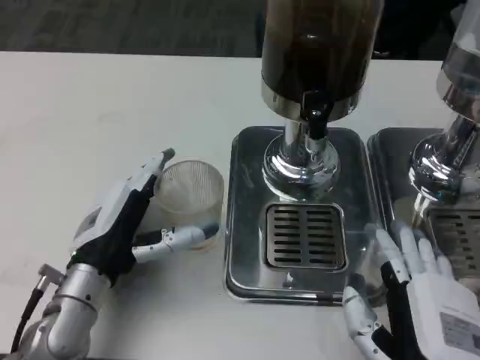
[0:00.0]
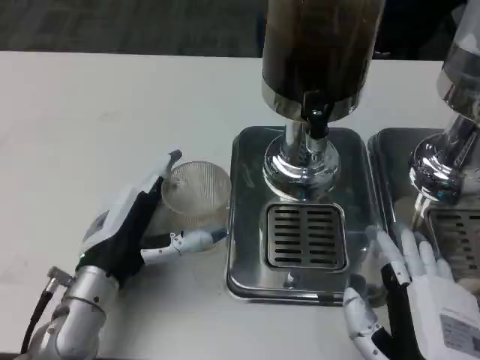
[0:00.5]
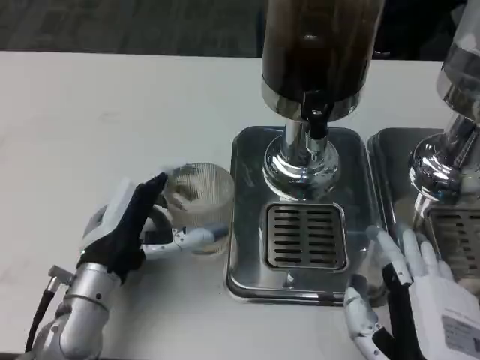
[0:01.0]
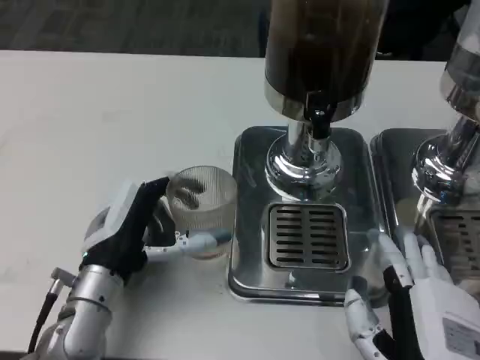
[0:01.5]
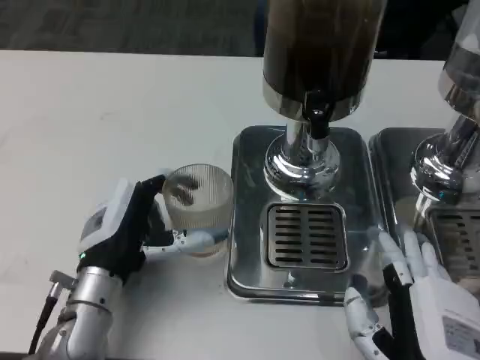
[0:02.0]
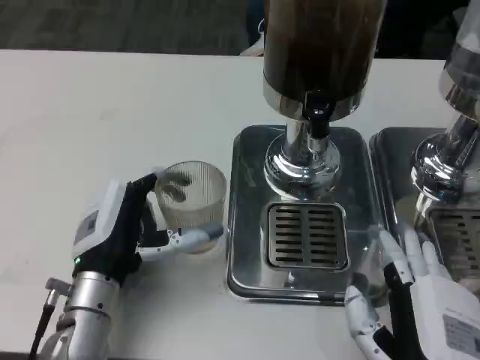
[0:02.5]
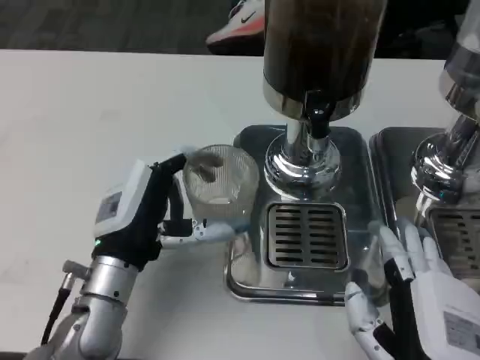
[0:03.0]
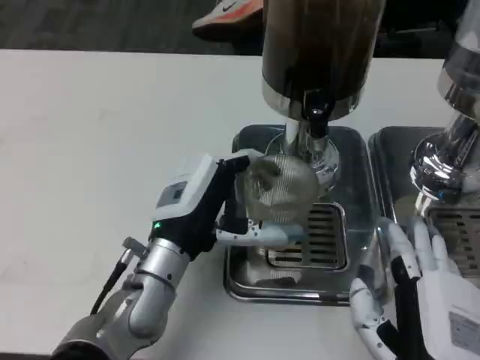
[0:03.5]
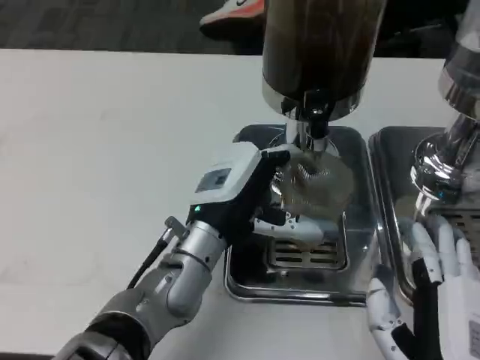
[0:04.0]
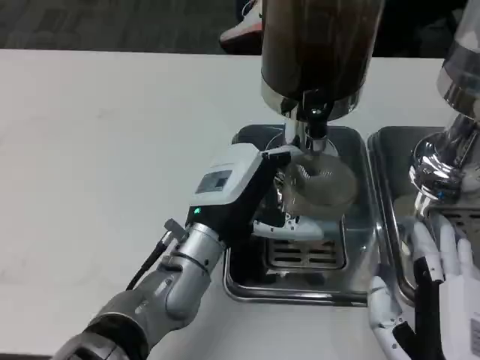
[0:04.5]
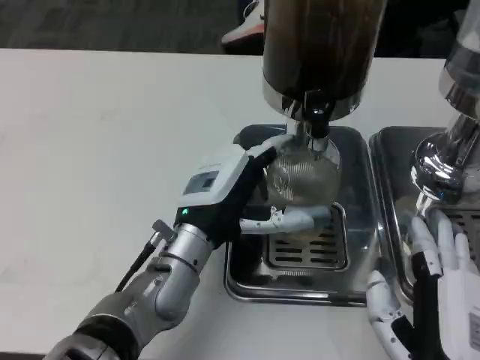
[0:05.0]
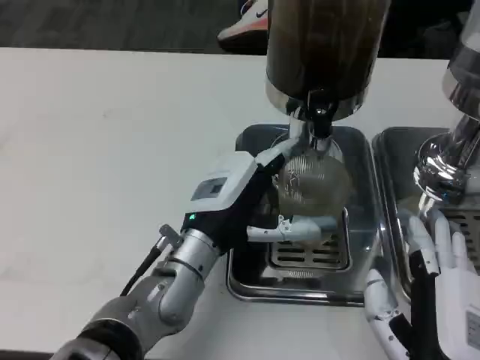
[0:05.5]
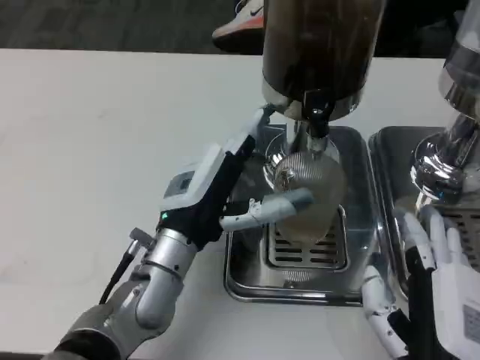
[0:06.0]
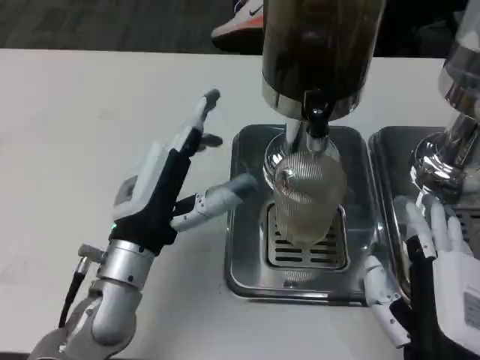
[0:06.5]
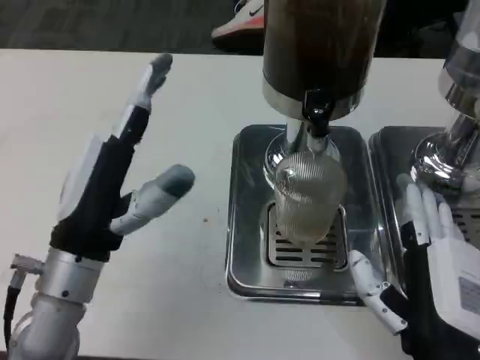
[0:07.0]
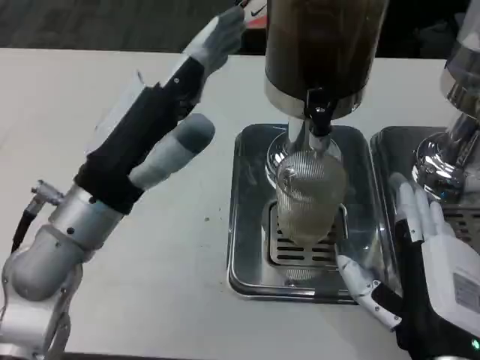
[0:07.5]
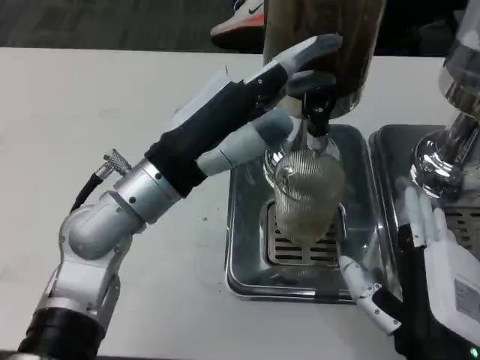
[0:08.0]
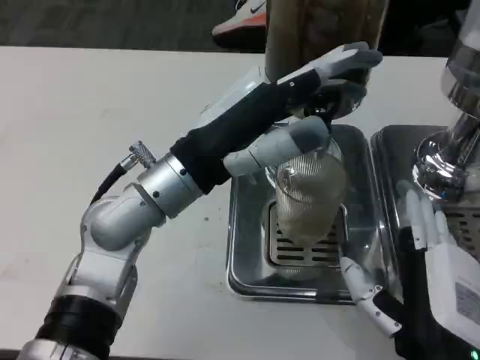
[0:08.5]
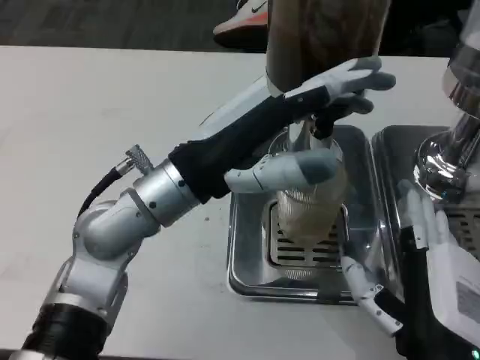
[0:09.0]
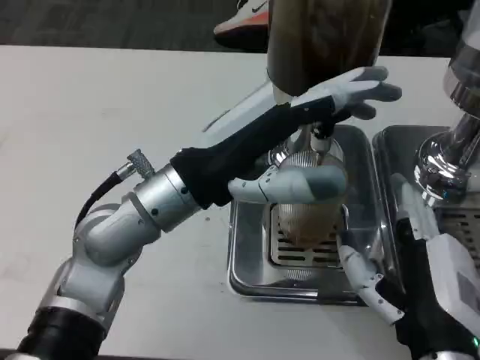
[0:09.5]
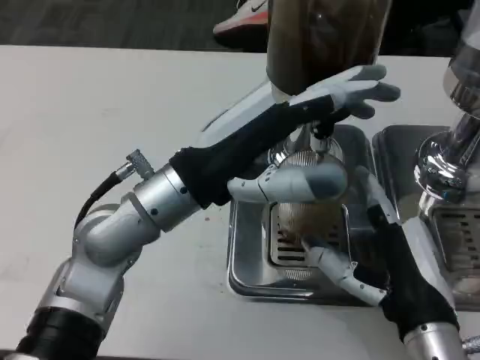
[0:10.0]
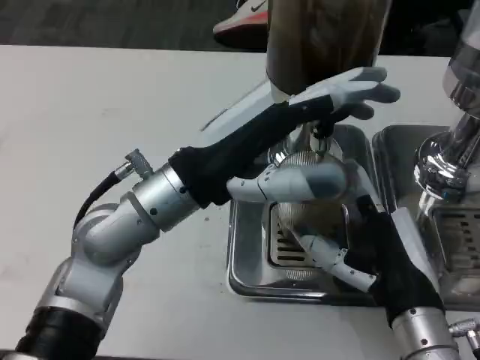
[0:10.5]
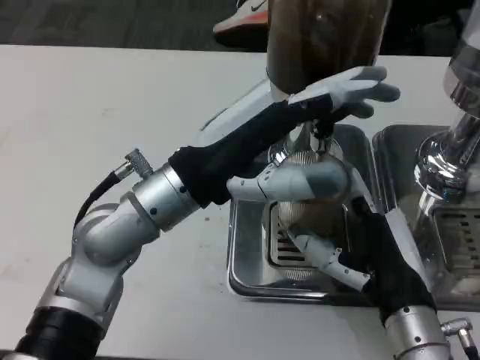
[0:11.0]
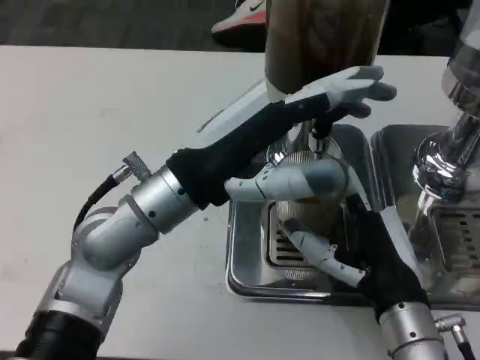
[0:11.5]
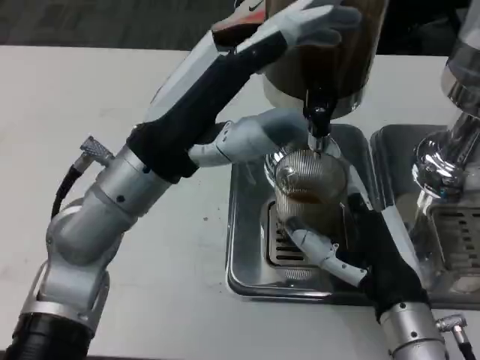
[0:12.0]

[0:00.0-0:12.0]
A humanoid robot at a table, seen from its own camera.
Task of the whole recording: Grasp the cup under the faucet to collect the drink, then remove the cup.
0:00.0 to 0:02.0: The hands make only small movements.
0:02.0 to 0:04.0: The left hand shifts about 10 cm to the right.
0:04.0 to 0:06.0: The hands make only small movements.
0:06.0 to 0:08.0: The left hand shifts some 10 cm upward.

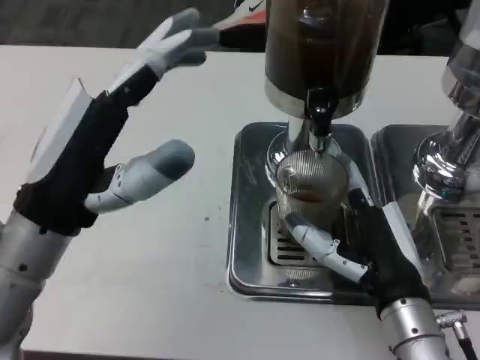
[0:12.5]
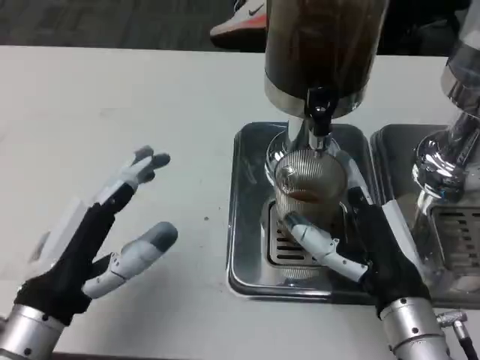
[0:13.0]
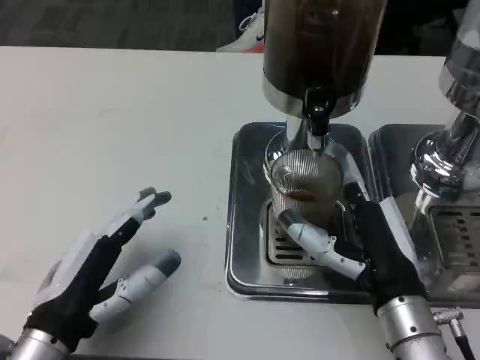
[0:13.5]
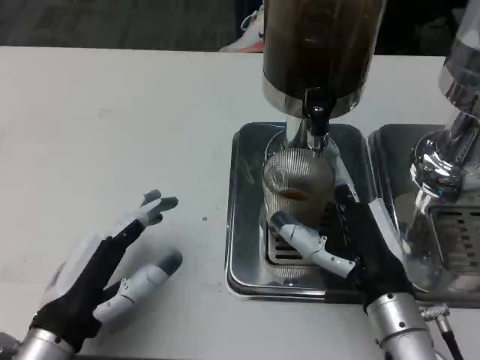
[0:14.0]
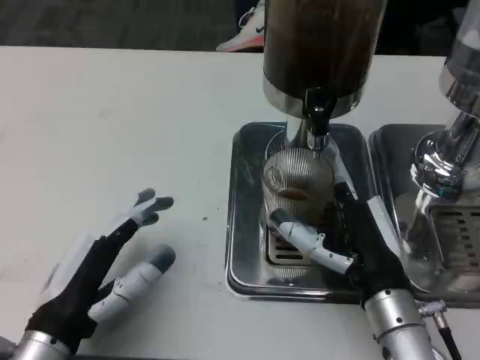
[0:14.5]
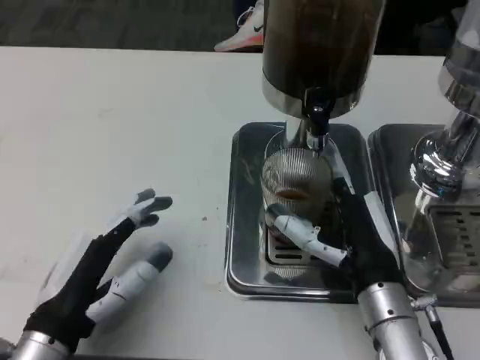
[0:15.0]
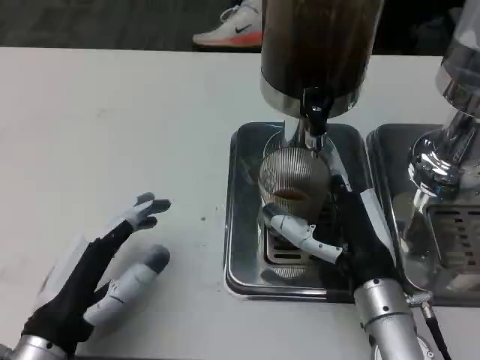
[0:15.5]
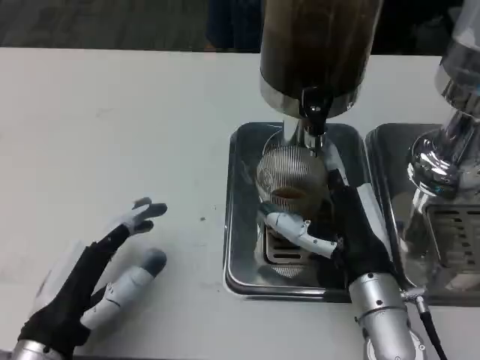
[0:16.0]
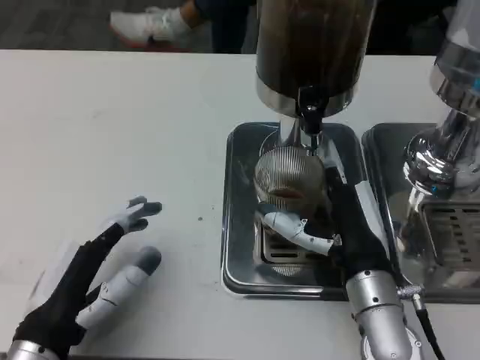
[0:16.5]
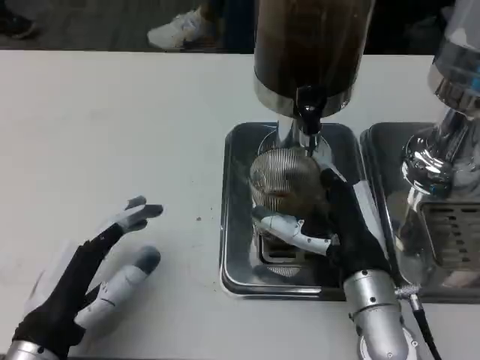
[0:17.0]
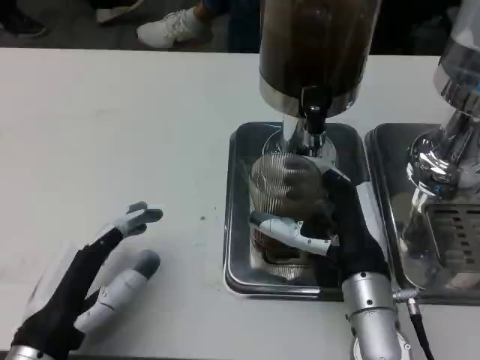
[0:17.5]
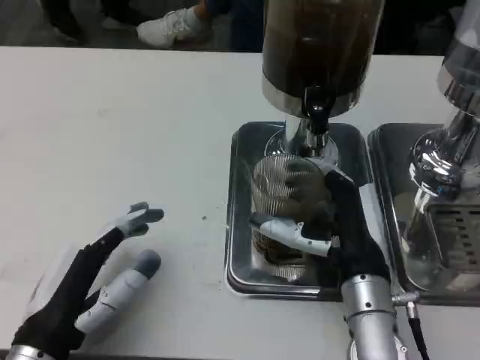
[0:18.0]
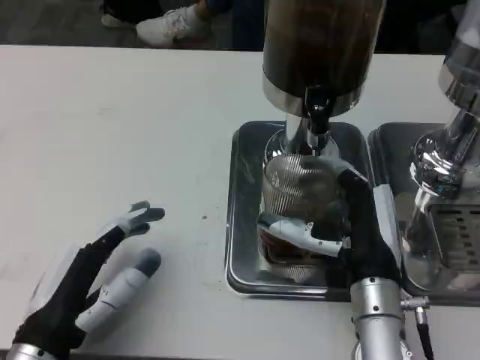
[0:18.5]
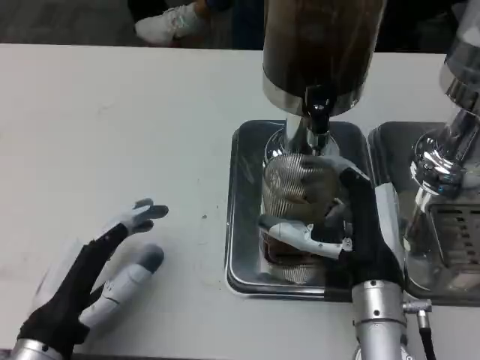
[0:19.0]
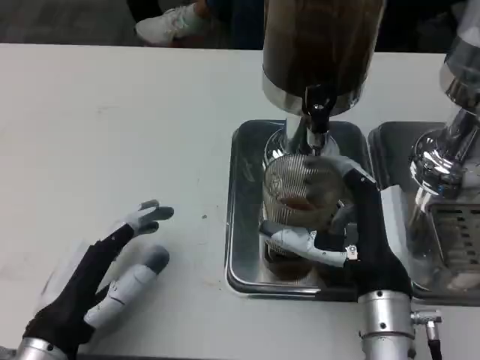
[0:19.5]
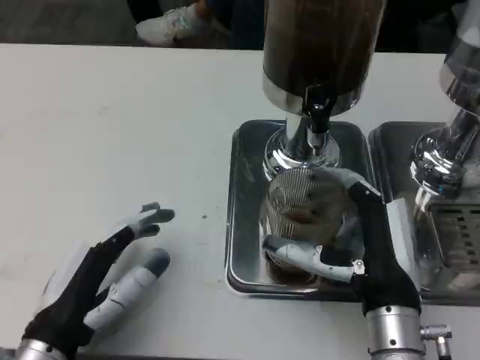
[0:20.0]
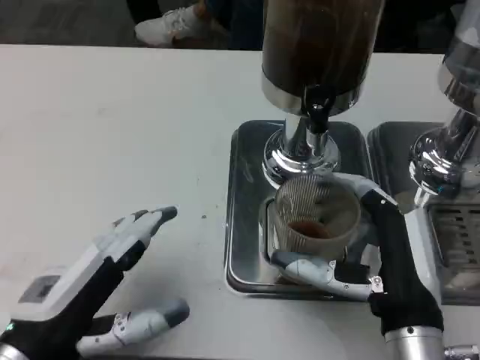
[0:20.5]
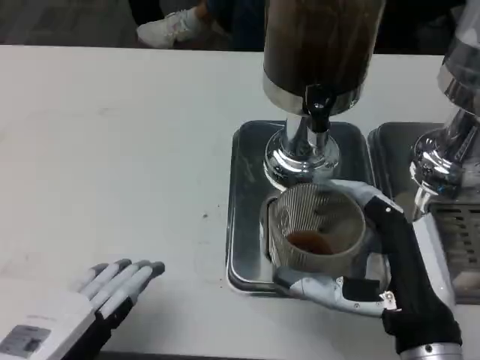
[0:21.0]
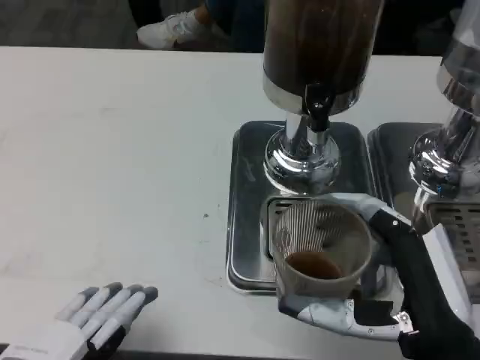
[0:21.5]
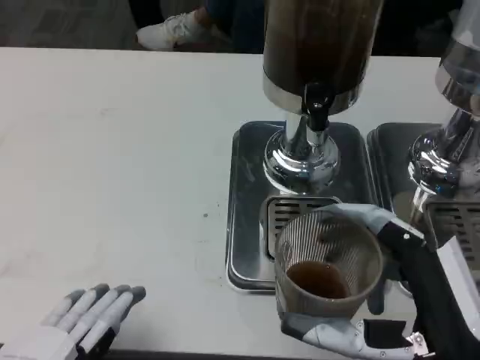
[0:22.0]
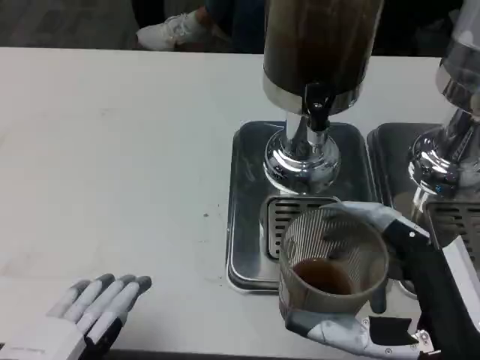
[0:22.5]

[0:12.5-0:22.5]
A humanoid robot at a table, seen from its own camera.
Task of the whole recording: Grasp the cup under the faucet to collect the drink, then remove the cup.
0:12.5 to 0:14.5: The left hand is displaced downward and backward by roughly 10 cm.
0:18.5 to 0:20.5: The right hand shifts approximately 5 cm backward.
0:20.5 to 0:22.5: The hands both shift backward by roughly 5 cm.
